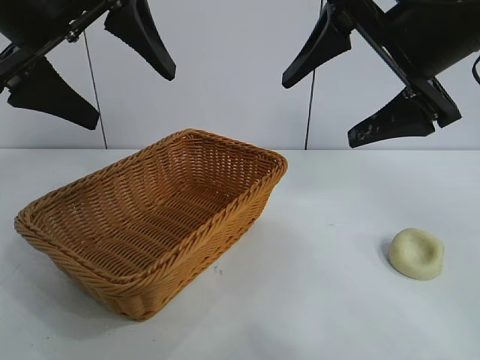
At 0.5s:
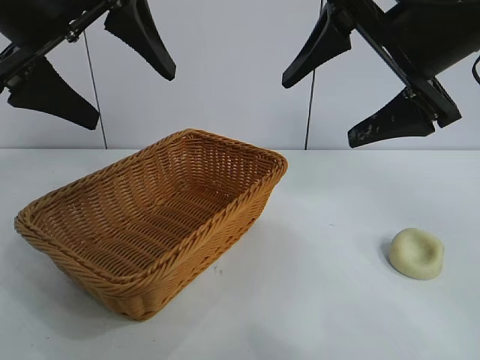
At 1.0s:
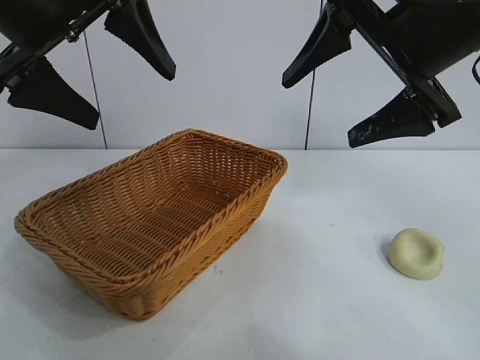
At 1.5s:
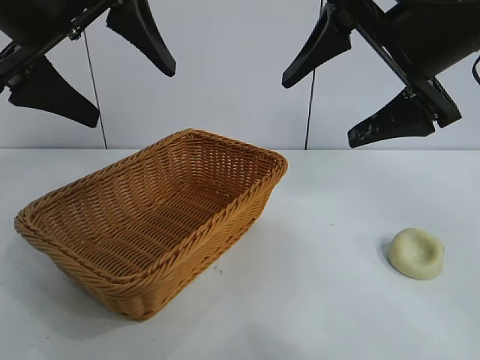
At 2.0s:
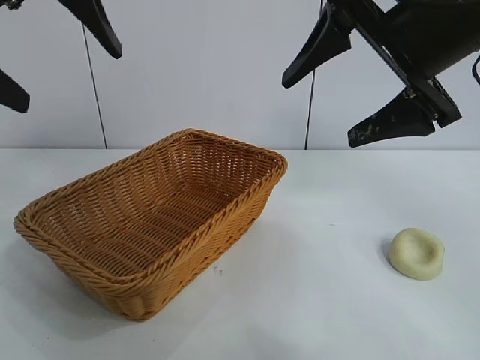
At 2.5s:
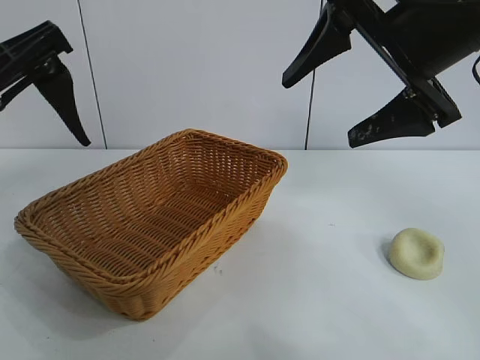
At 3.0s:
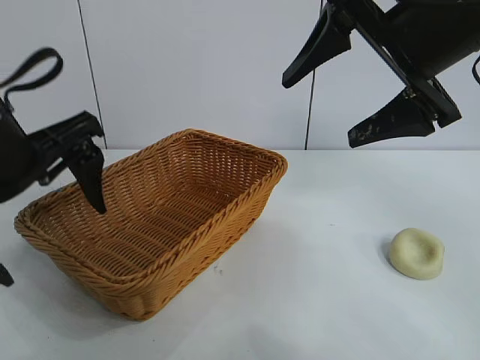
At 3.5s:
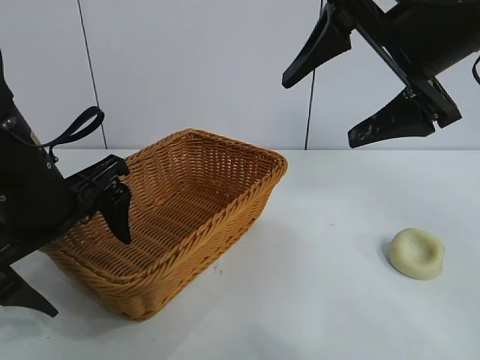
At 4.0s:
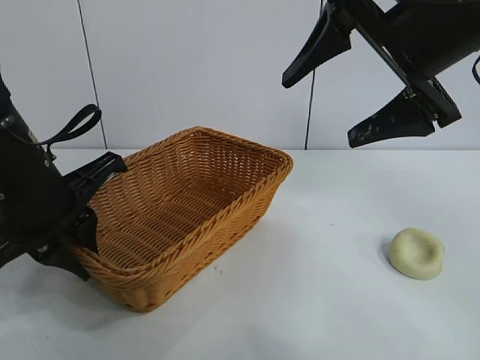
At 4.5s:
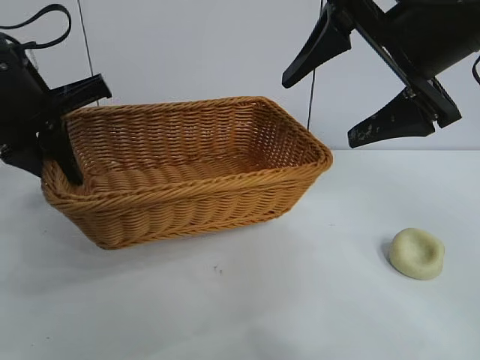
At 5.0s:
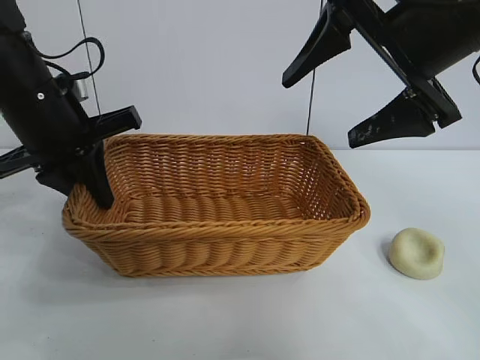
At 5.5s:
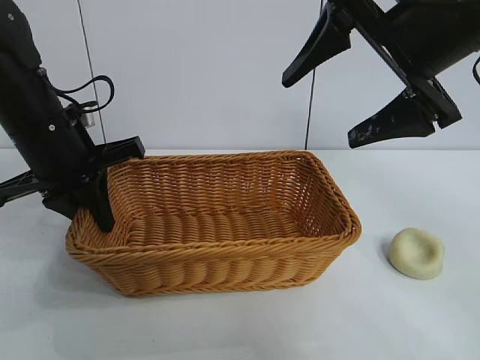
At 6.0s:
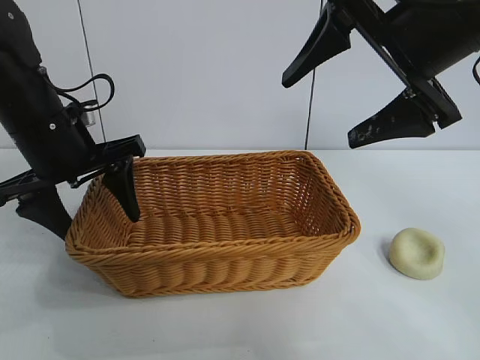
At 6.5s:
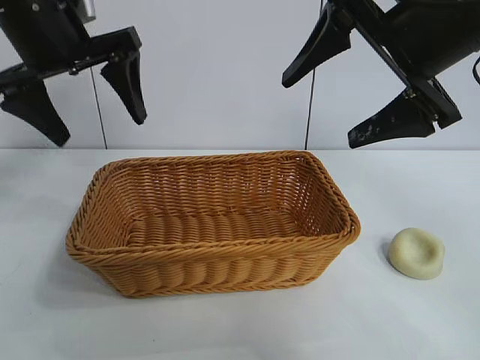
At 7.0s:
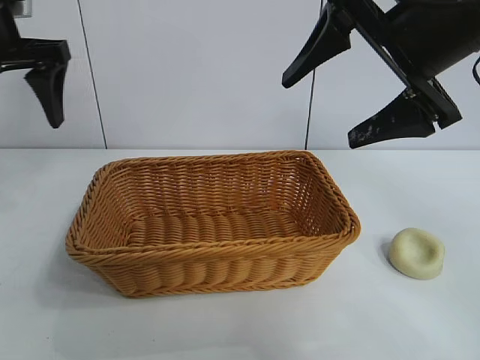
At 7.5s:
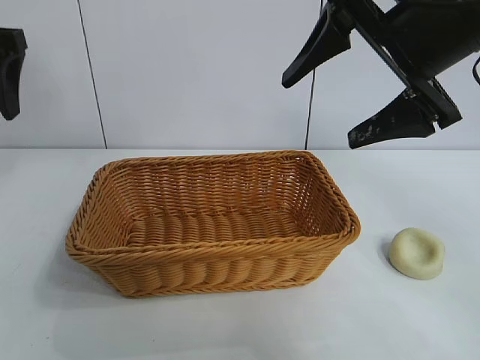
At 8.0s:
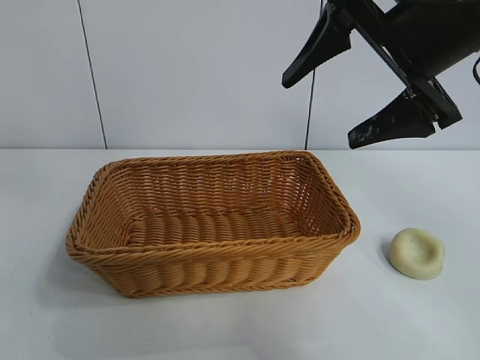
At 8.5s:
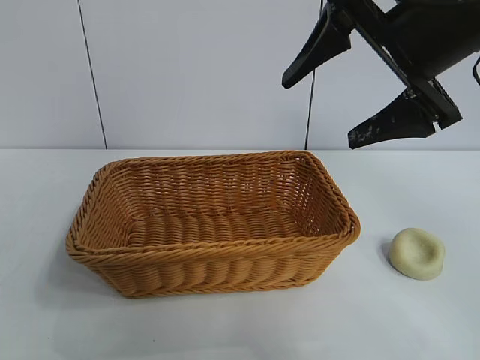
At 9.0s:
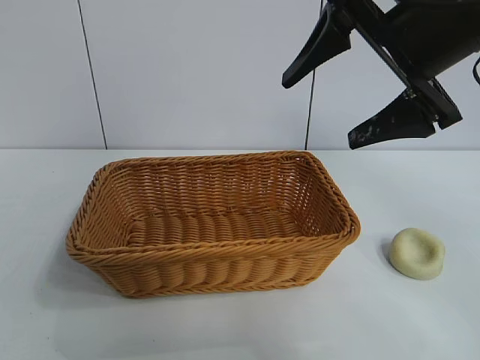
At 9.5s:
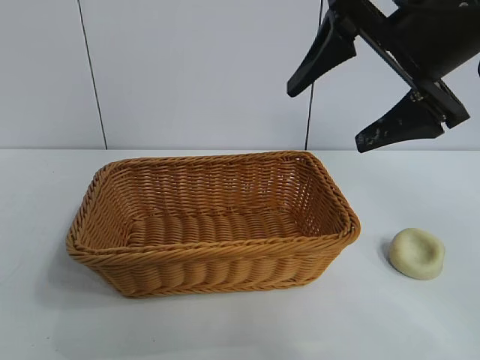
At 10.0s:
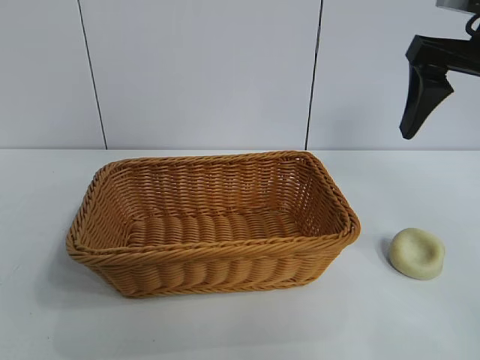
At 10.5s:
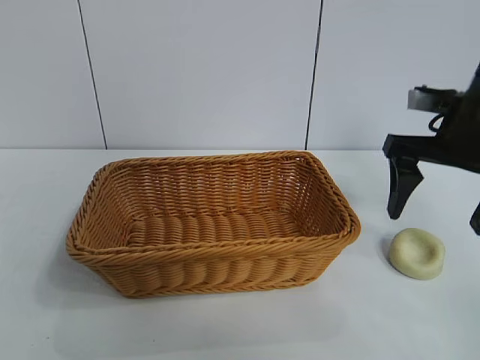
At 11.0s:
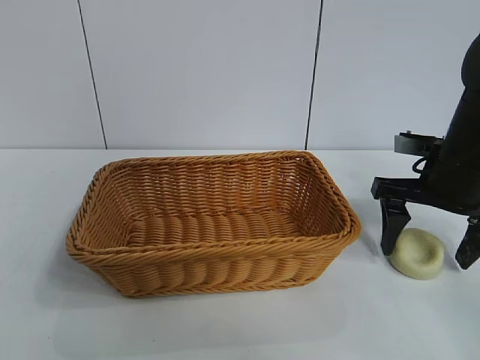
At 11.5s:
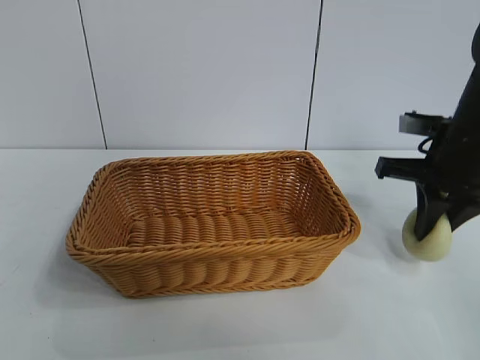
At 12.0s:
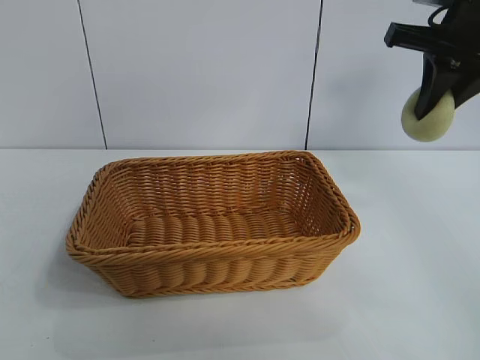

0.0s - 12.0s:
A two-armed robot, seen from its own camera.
Task of the whole recording: pick up the egg yolk pastry and put it into the basket.
Step, 1.5s - 4.0s: Grasp the basket with left gripper.
Step, 4.5s - 6.0s: Place the basket in the center of view with left gripper.
Step, 6.5s - 11.0s: Grasp egg yolk pastry with right gripper.

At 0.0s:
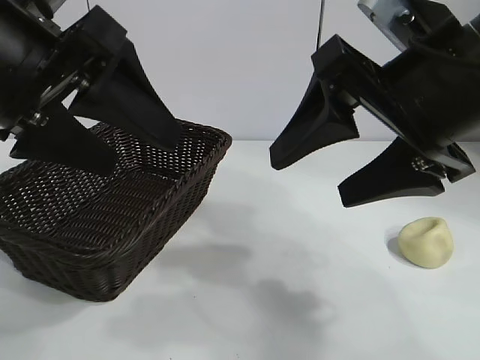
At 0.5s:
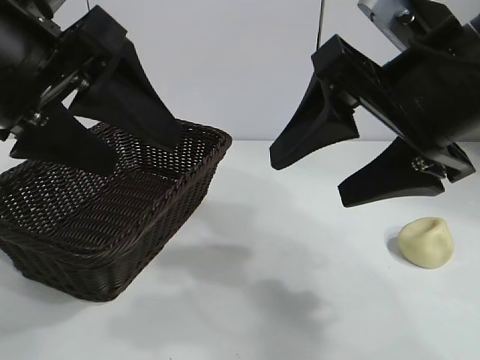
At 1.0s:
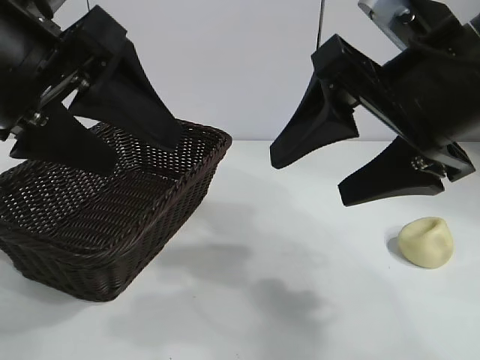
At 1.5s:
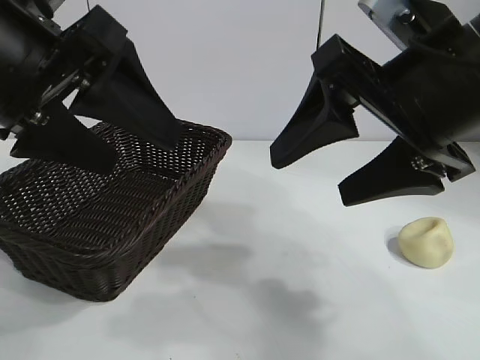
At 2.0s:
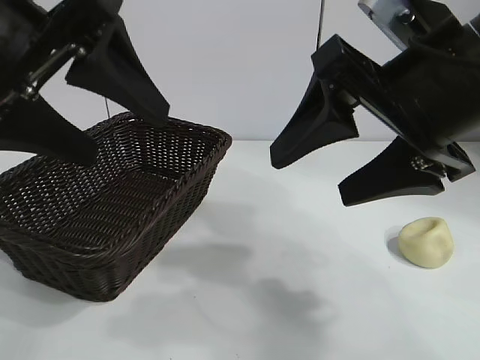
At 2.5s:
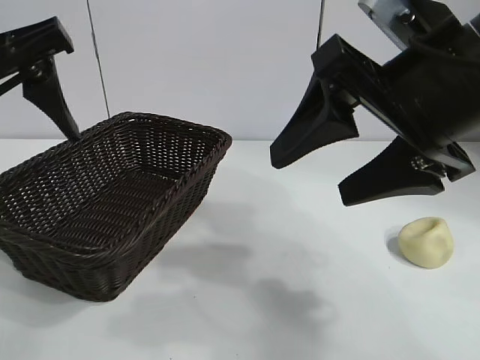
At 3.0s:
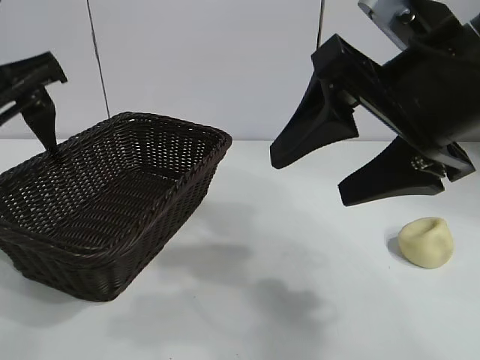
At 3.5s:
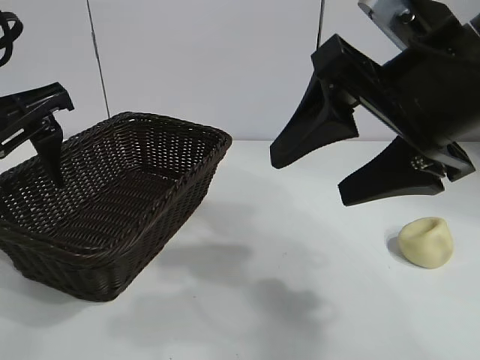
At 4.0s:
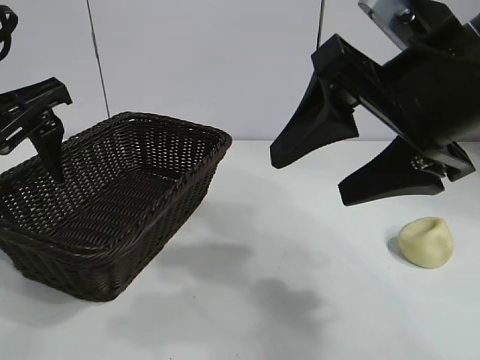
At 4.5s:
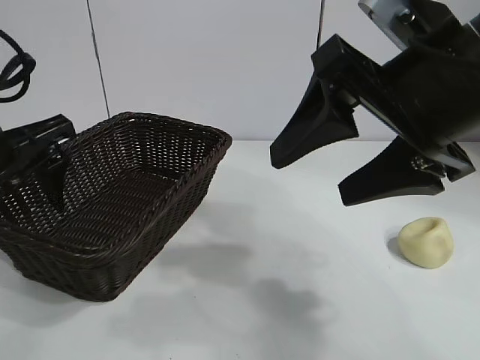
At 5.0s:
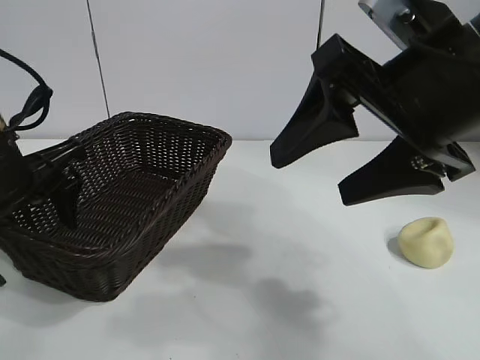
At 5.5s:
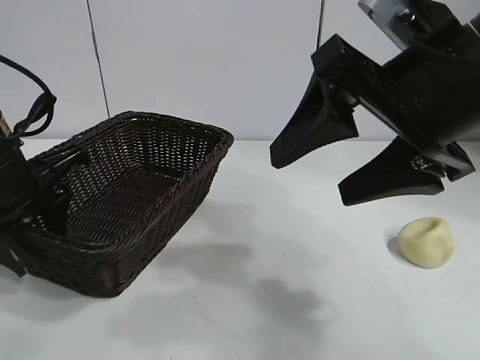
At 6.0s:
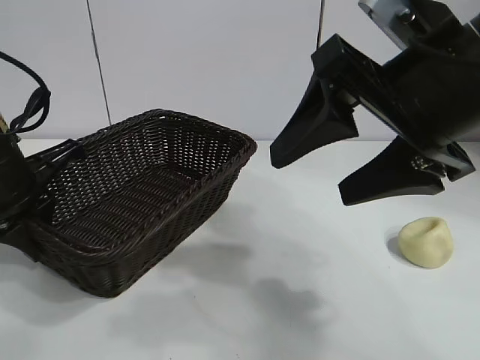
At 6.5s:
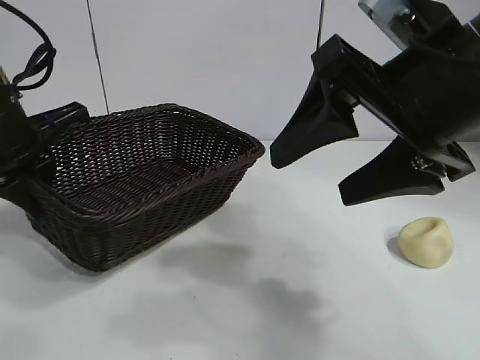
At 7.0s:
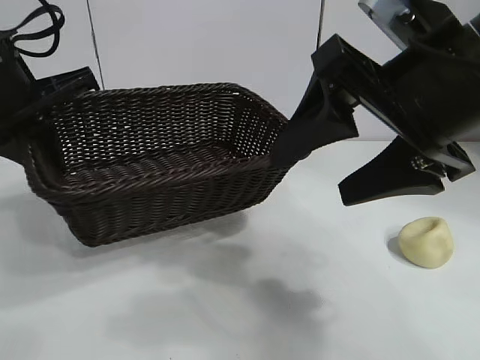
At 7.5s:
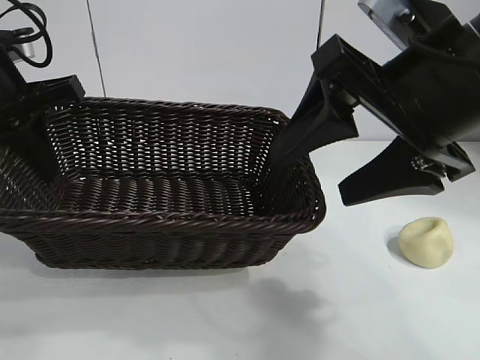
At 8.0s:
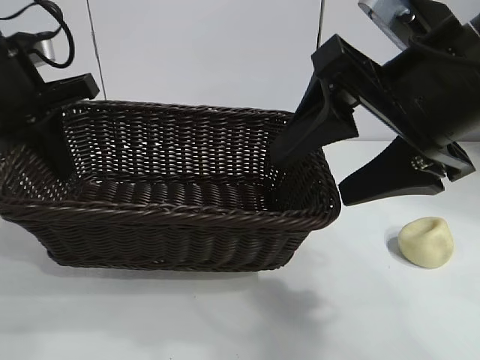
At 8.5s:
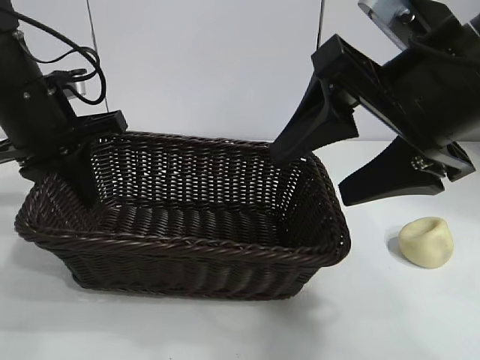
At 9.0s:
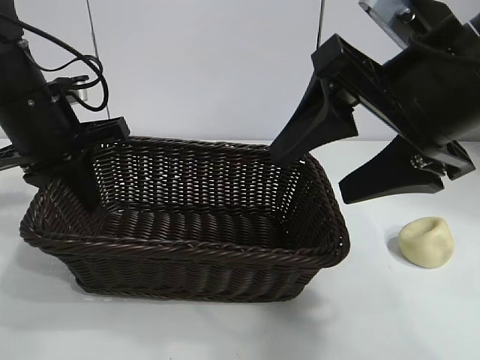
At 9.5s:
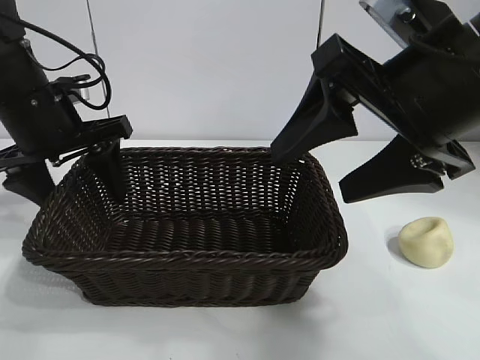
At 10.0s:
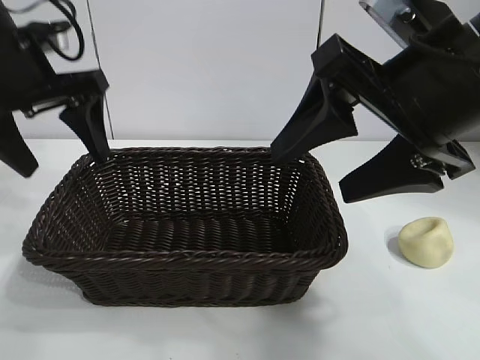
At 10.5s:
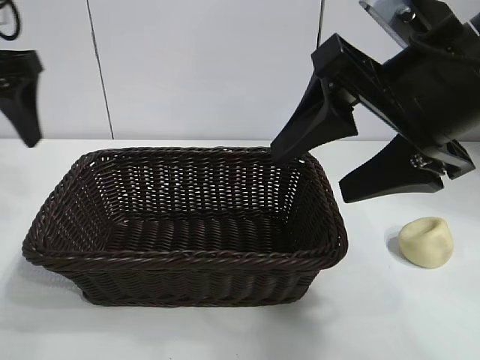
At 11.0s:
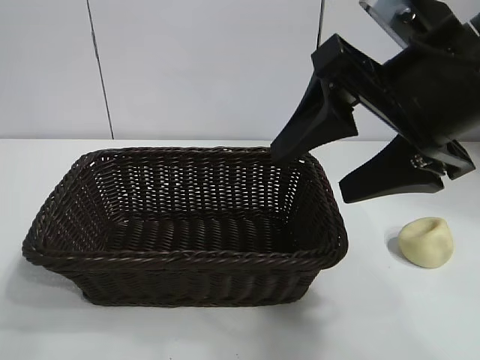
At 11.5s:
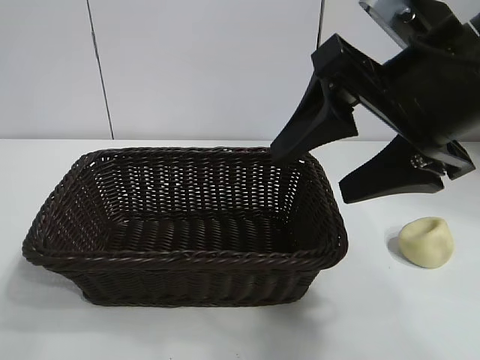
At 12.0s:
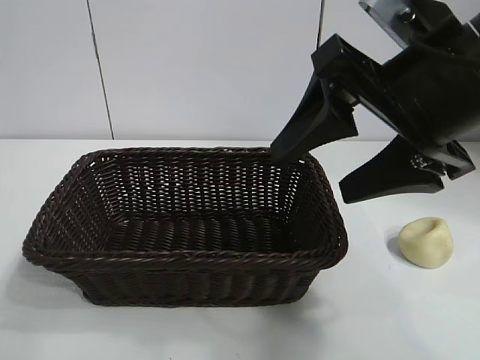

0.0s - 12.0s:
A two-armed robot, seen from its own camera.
Task of the whole recording: pick up the egg yolk pastry and put it into the basket.
Step, 1.5s - 5.5s: Grasp the basket with left gripper.
Step, 6.0s - 9.5s: Place the basket in the center of view with left gripper.

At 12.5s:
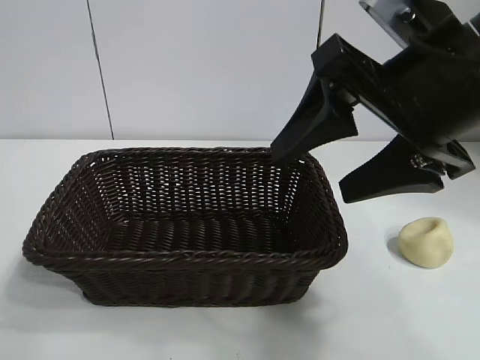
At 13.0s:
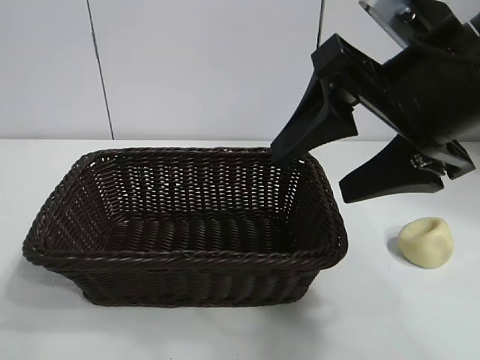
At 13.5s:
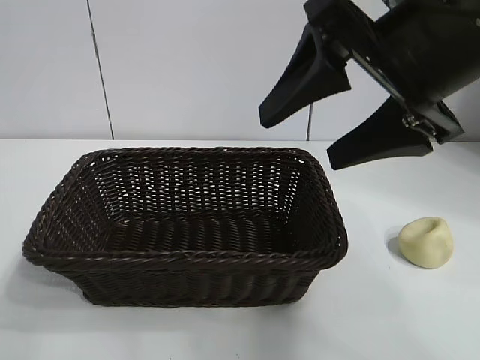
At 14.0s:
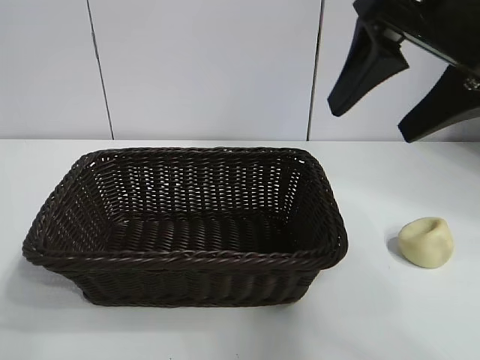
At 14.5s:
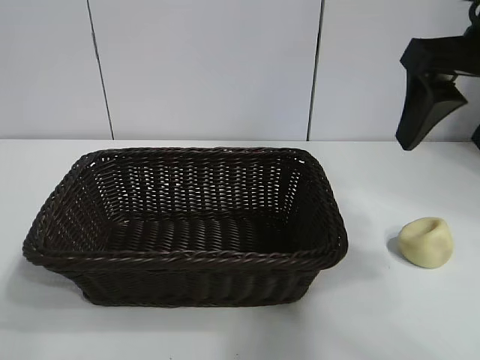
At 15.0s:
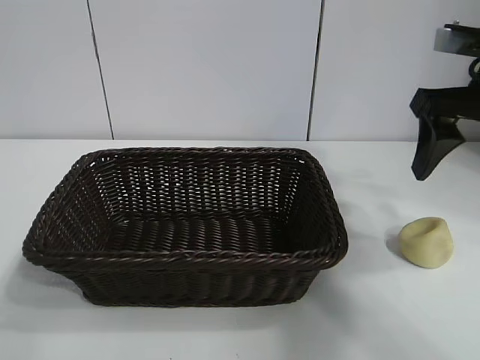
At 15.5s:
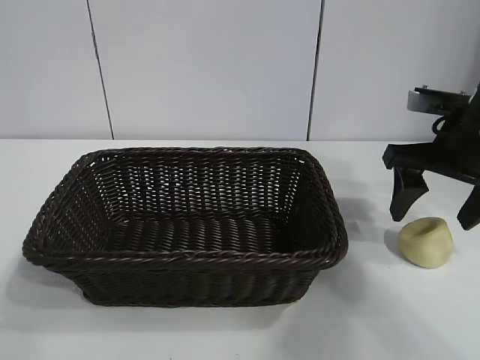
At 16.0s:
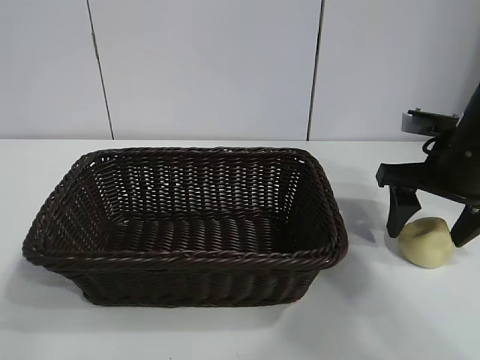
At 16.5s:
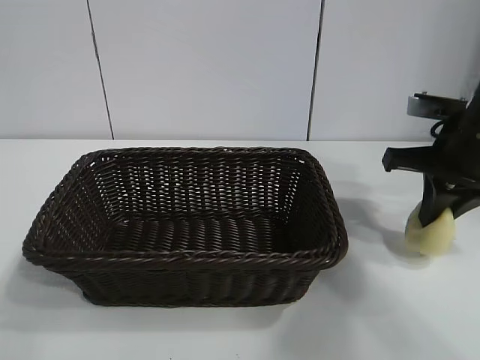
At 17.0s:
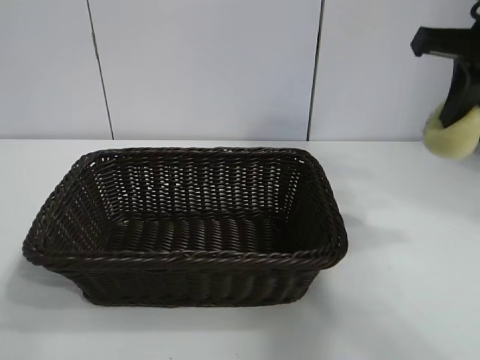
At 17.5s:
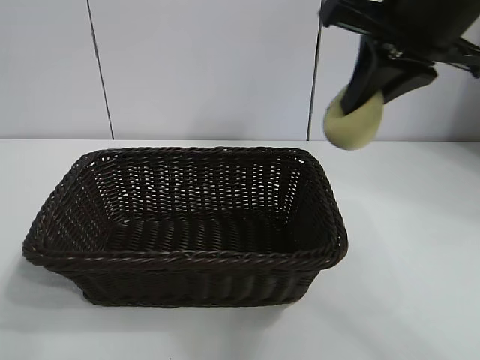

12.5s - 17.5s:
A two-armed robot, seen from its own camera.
Task of the whole recording: pick up the egg yolk pastry and put it into the basket.
Step, 12.5s - 16.0s: Grasp egg yolk pastry with right gripper.
